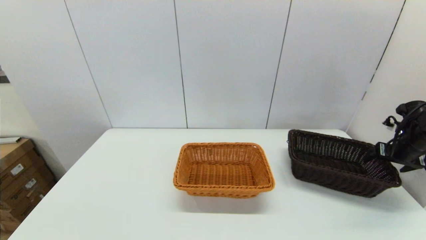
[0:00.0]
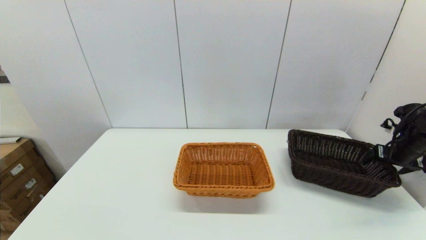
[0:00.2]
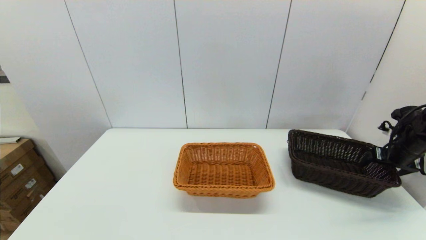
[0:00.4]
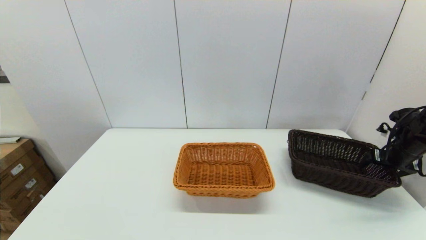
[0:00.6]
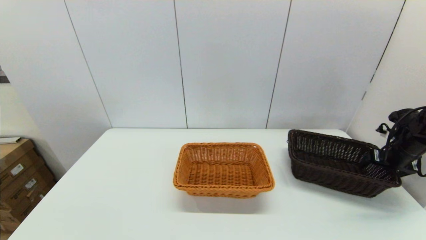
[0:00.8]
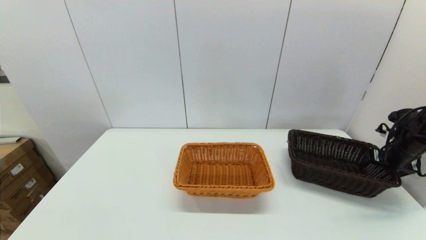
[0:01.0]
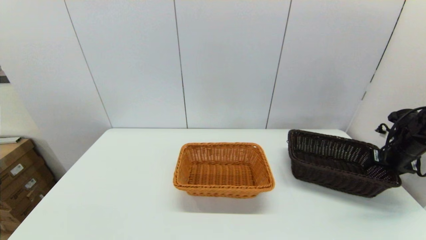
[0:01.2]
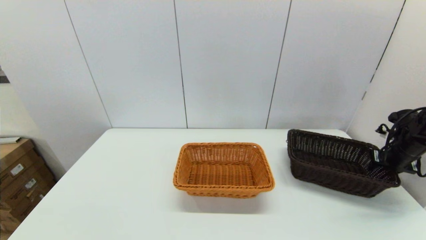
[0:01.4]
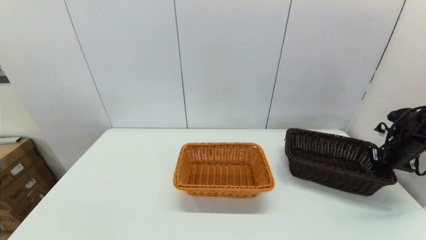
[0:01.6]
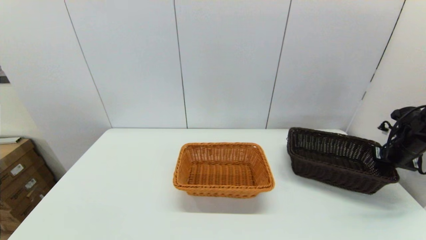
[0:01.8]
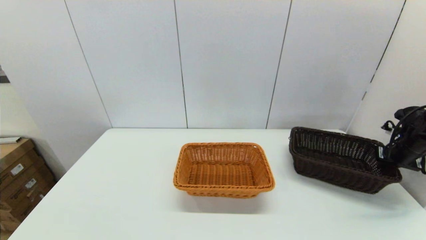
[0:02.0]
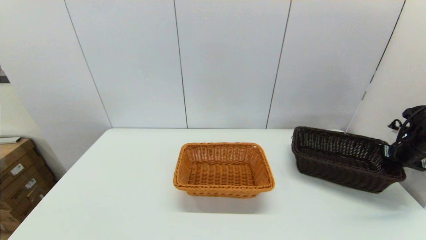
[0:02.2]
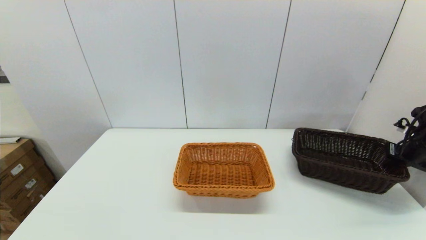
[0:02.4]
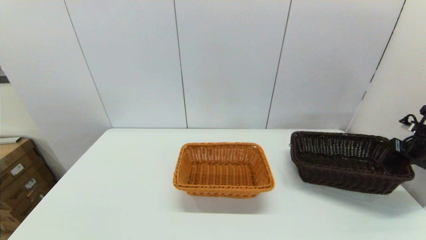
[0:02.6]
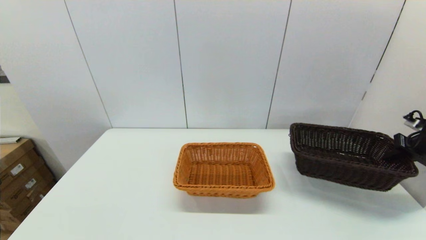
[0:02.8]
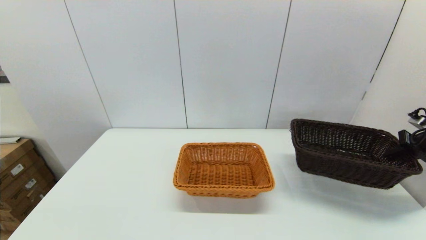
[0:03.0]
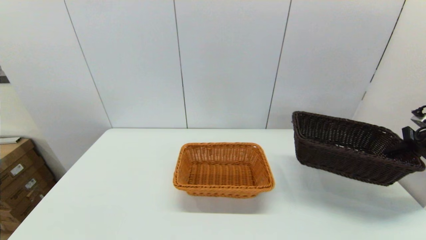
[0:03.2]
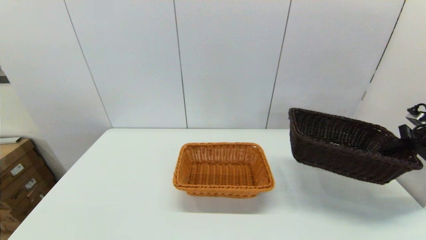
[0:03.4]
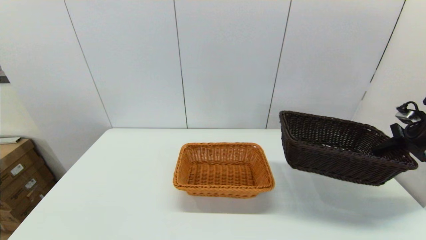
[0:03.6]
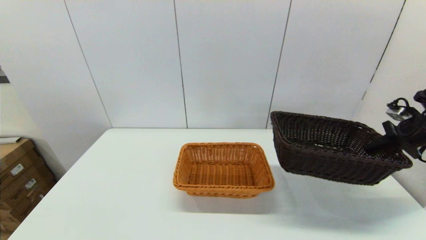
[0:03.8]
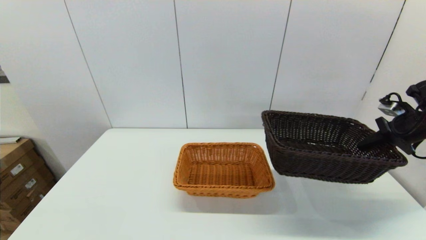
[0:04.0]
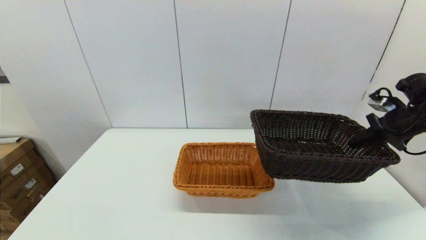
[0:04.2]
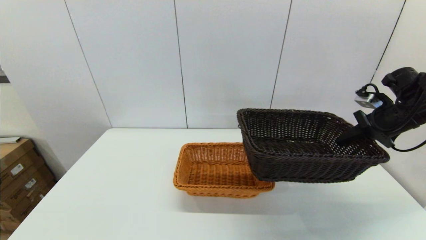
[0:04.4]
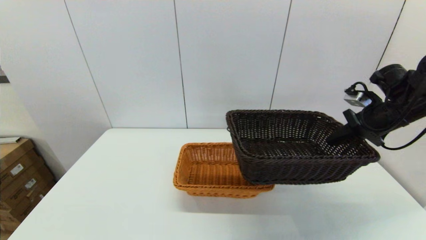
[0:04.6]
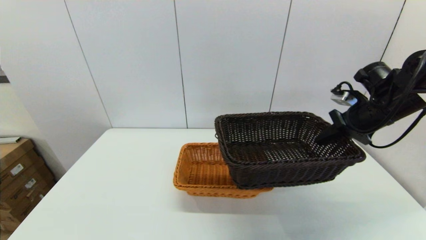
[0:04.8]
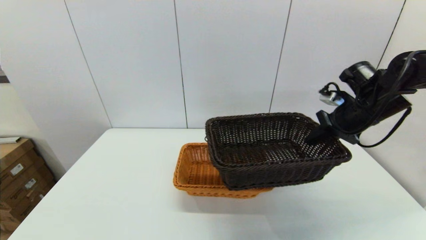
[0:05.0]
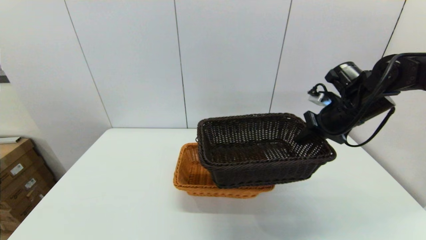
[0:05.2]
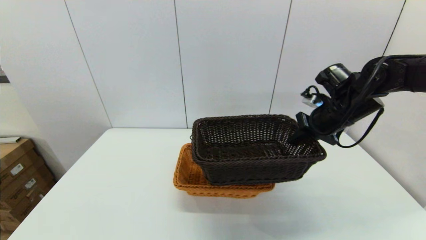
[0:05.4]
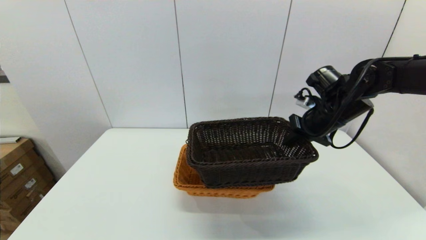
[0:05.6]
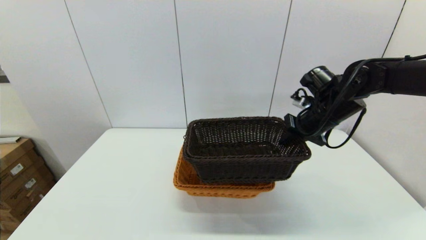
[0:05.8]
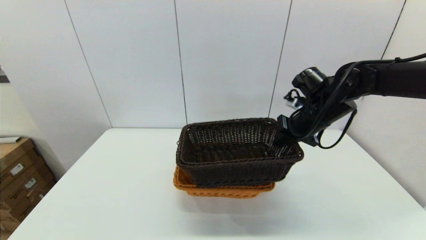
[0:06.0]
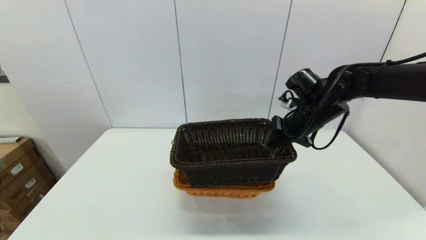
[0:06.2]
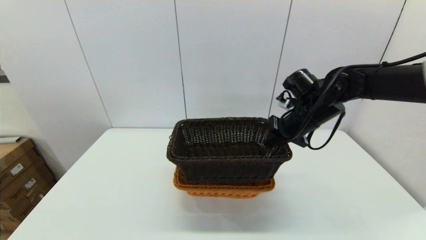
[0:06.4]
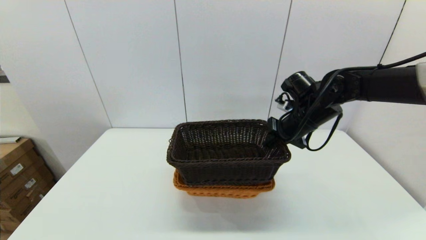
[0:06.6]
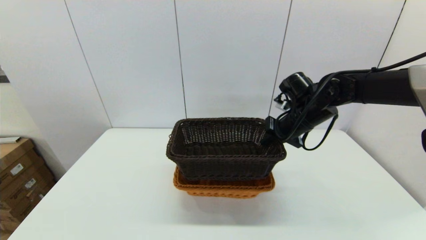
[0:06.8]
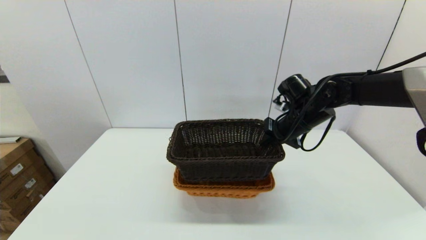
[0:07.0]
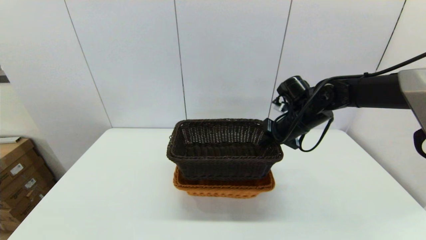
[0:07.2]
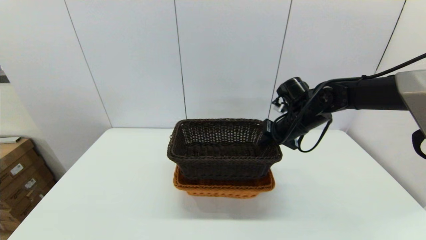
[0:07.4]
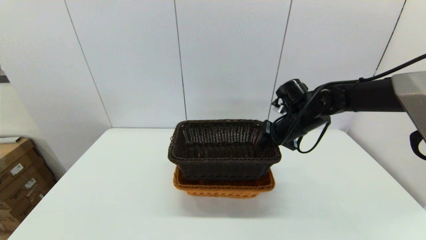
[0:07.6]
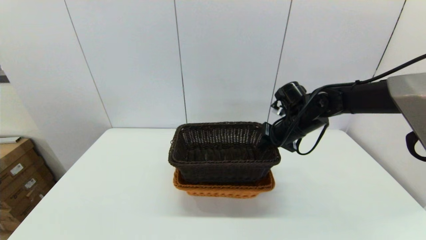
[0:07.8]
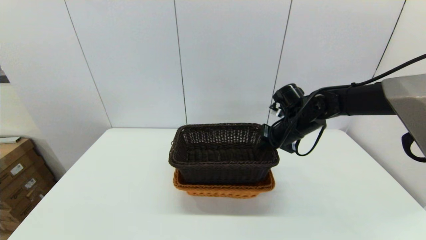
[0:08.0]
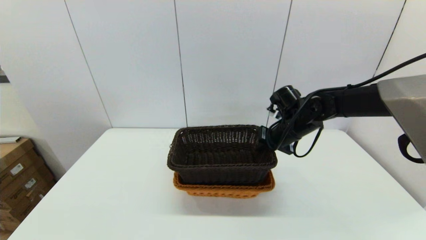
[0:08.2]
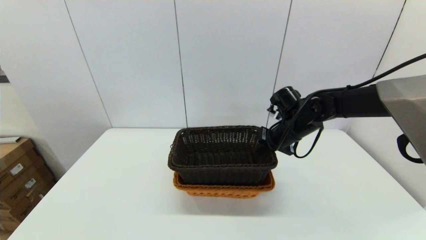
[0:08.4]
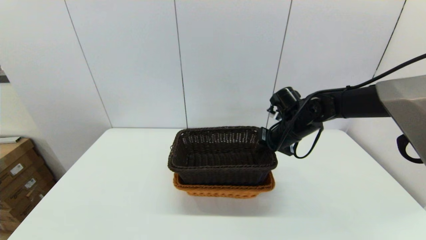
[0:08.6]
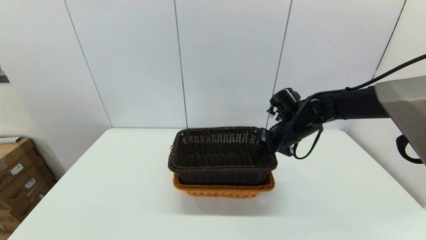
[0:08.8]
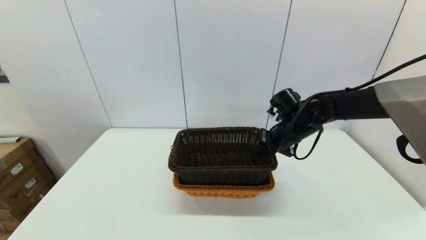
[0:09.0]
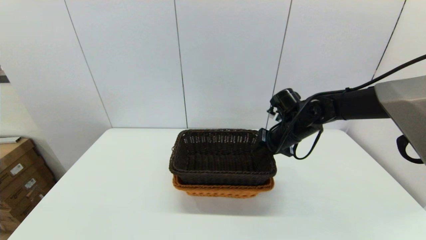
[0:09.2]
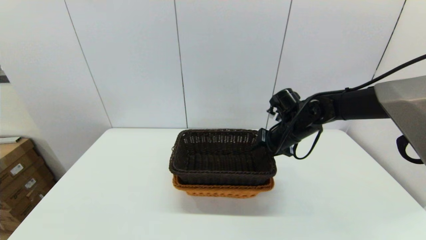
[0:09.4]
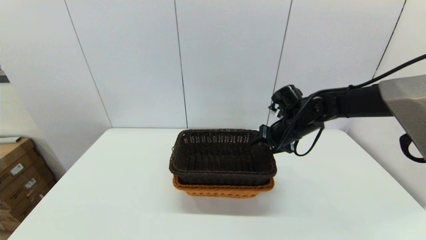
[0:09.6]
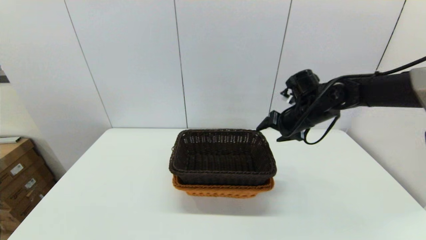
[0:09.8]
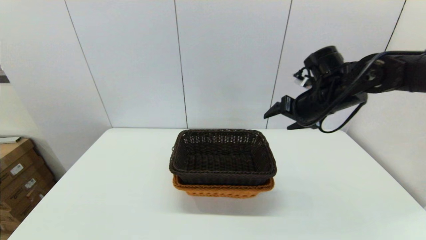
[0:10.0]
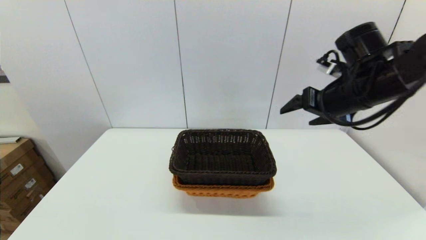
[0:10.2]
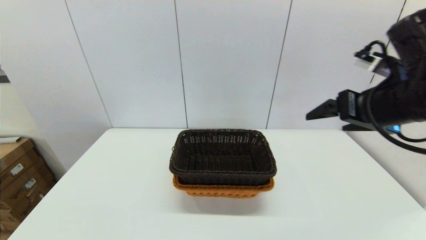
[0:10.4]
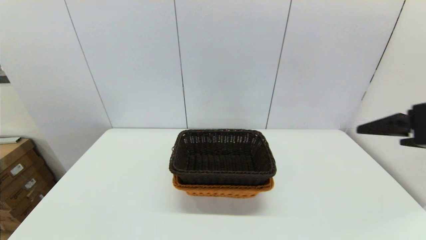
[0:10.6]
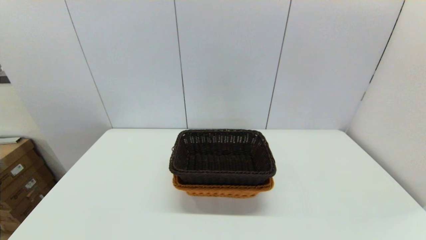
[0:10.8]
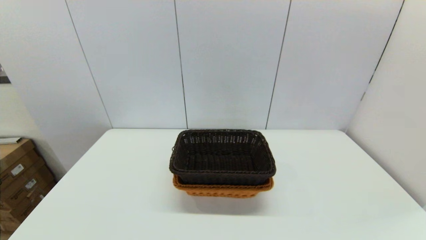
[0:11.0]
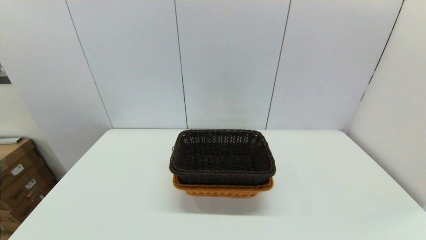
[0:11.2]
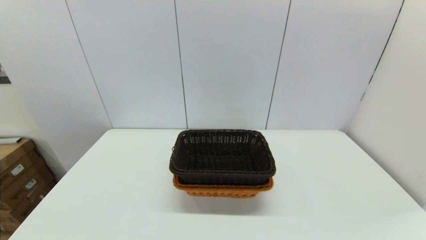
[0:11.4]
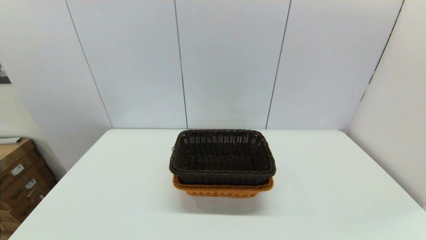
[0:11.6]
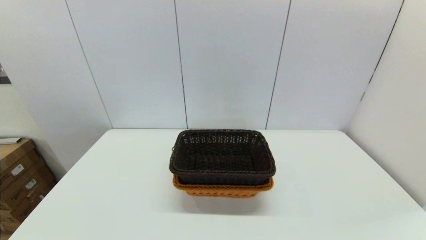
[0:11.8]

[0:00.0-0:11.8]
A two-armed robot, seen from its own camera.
Task of the whole recording: stack a basket on top of another basket.
Step, 0:00.0 to 0:02.4: Grasp the dark basket with the right gripper.
Step, 0:02.6 to 0:09.8: Place the dark basket into the light color basket with the right gripper.
0:00.0 to 0:01.4: The right gripper closes.
0:01.4 to 0:03.0: The right gripper moves upward, about 5 cm, and closes its fingers.
0:03.0 to 0:04.4: The right gripper heads to the left and upward, covering approximately 15 cm.
0:04.4 to 0:06.0: The right gripper shifts roughly 15 cm to the left.
0:06.0 to 0:07.4: There are only small adjustments of the grippers.
0:07.4 to 0:08.8: There are only small adjustments of the grippers.
0:08.8 to 0:10.4: The right gripper goes about 25 cm backward, upward and to the right, and opens.
0:10.4 to 0:11.8: The right gripper shifts about 35 cm backward and downward.

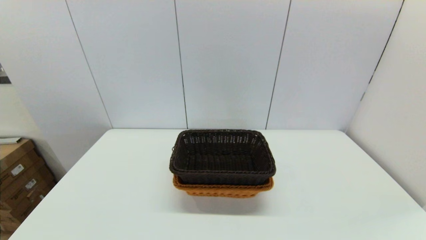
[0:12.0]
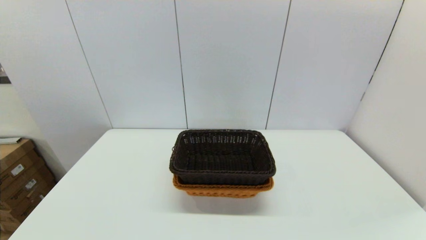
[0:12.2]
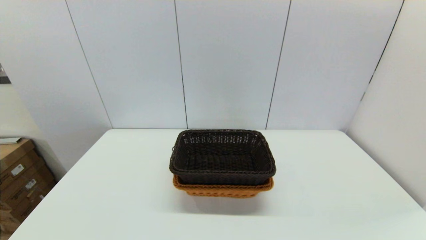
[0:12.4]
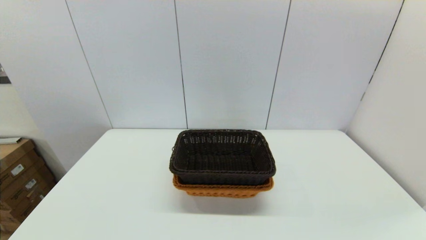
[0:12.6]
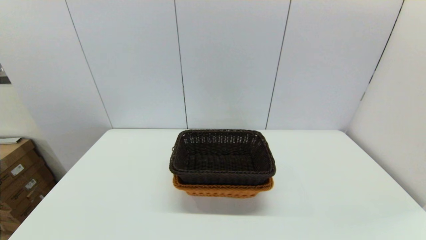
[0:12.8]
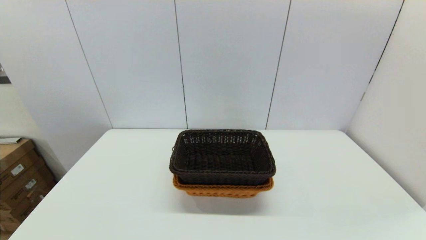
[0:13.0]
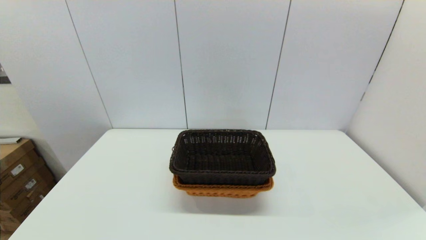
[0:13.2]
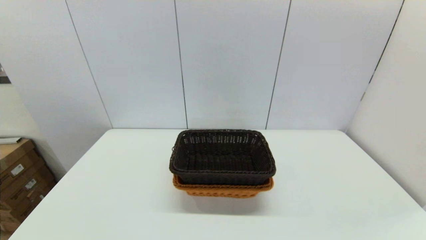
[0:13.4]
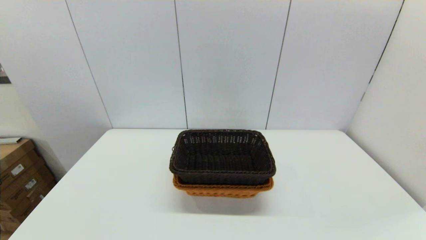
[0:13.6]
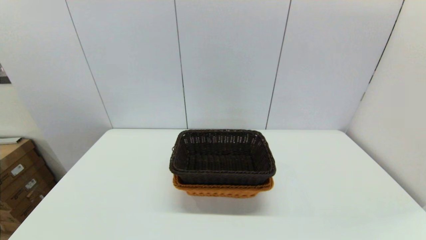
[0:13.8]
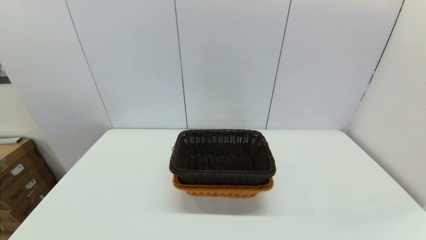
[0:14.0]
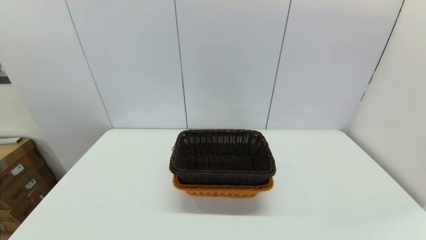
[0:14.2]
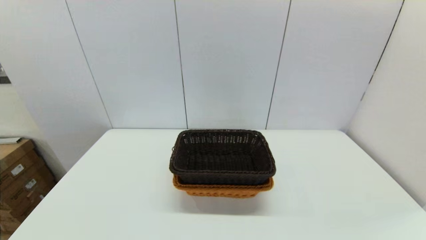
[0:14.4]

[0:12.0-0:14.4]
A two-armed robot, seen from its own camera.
Task of the whole recording: stack a basket on top of another basket.
0:13.2 to 0:14.4: Both grippers stay about where they are.
